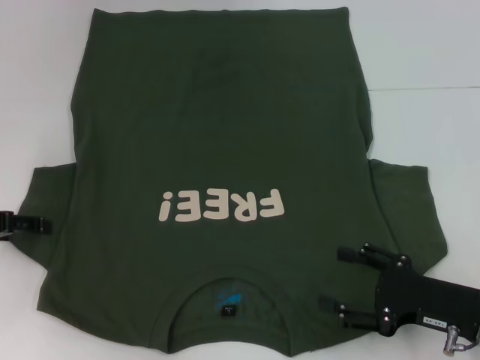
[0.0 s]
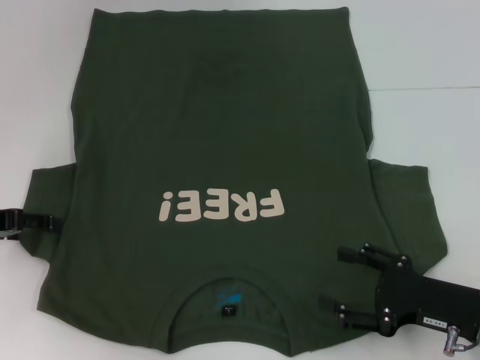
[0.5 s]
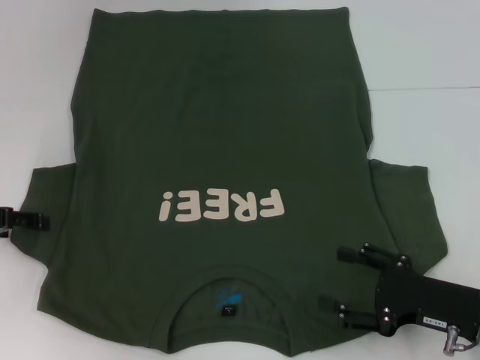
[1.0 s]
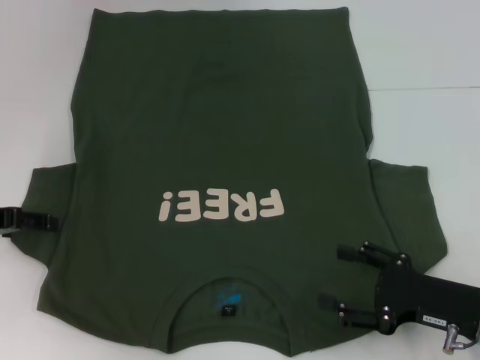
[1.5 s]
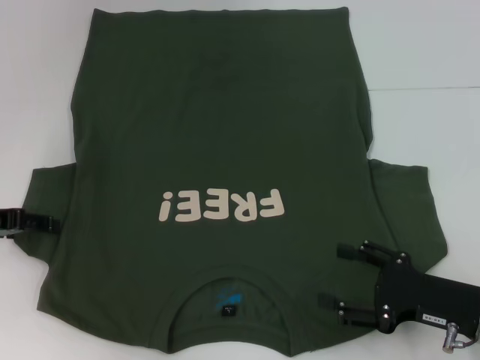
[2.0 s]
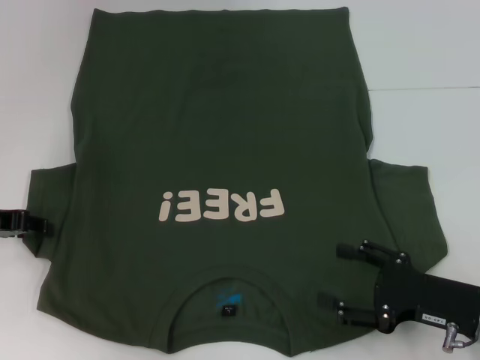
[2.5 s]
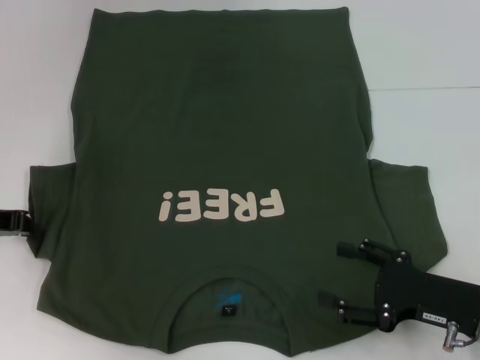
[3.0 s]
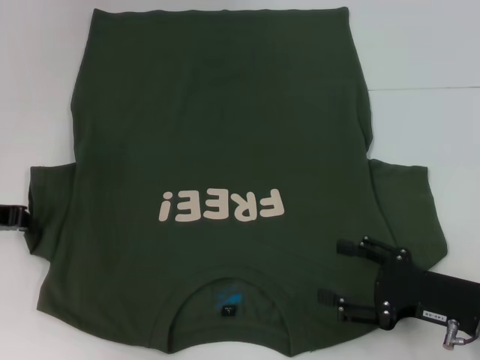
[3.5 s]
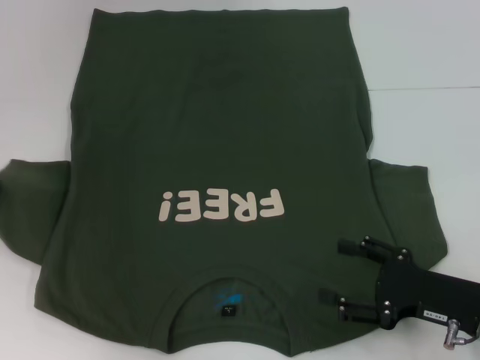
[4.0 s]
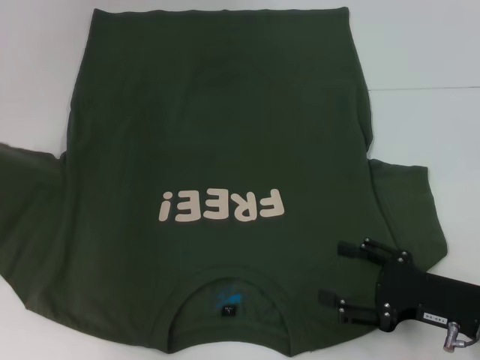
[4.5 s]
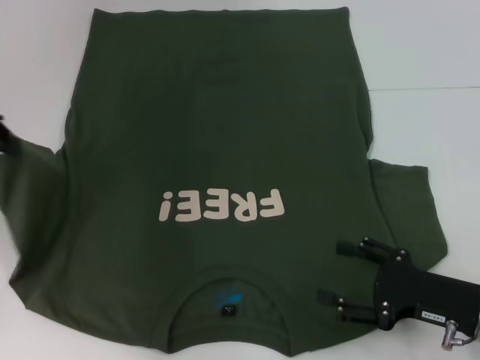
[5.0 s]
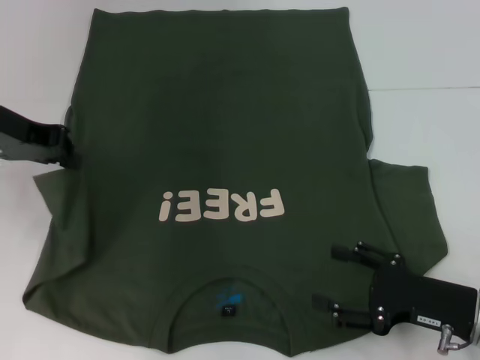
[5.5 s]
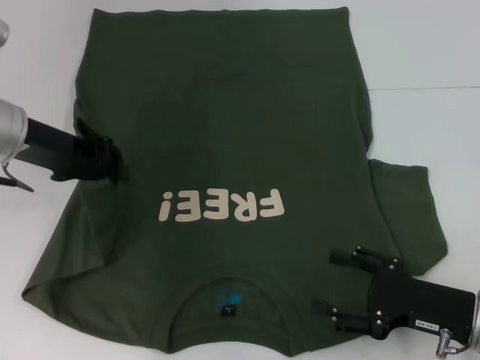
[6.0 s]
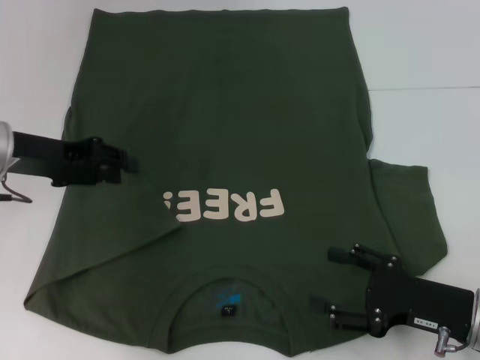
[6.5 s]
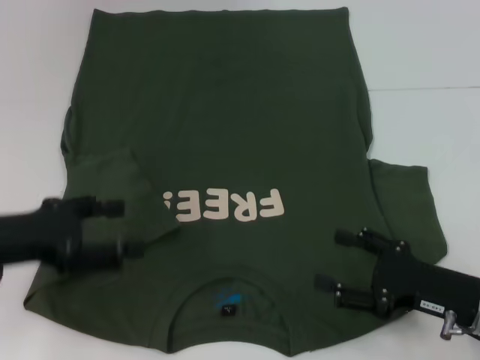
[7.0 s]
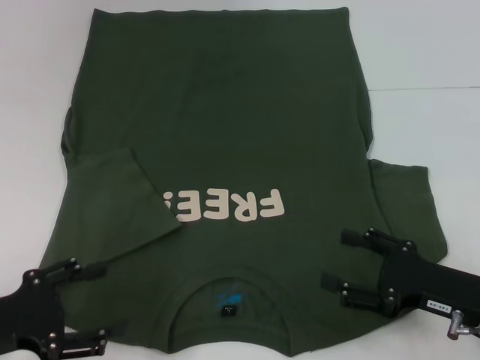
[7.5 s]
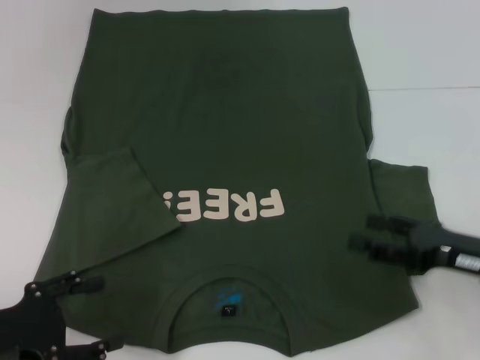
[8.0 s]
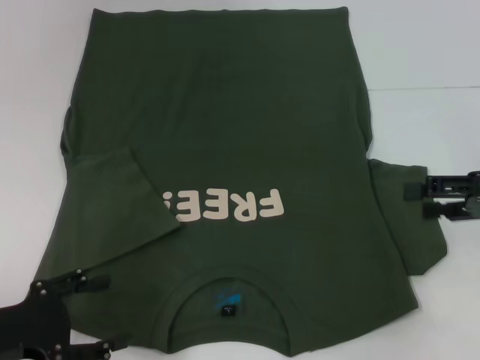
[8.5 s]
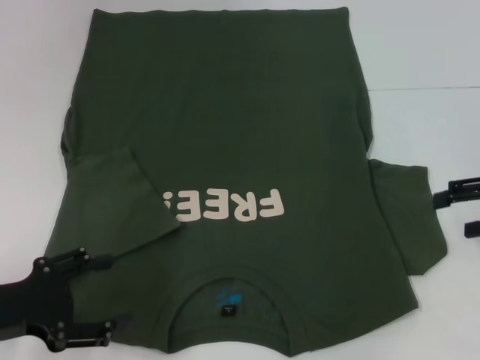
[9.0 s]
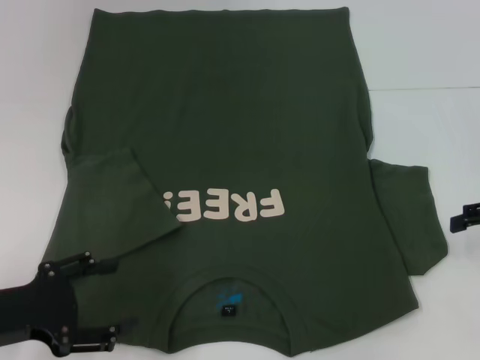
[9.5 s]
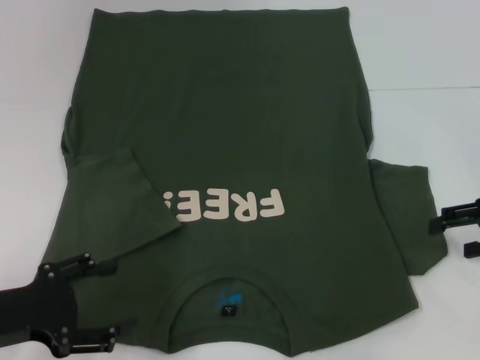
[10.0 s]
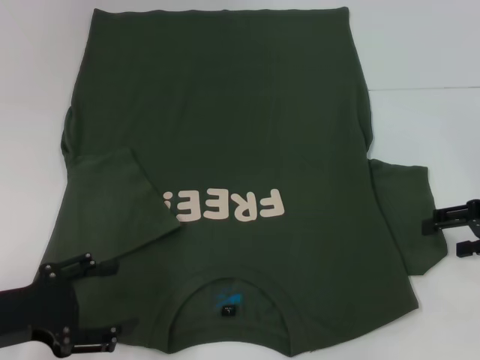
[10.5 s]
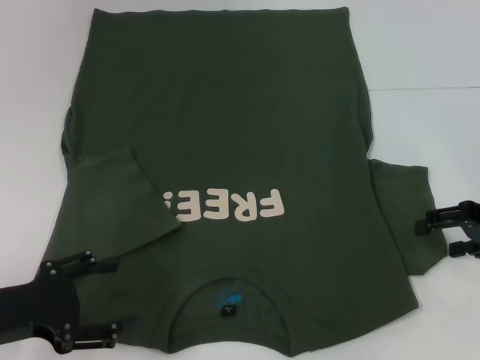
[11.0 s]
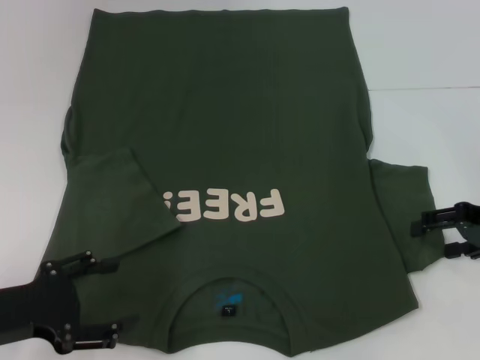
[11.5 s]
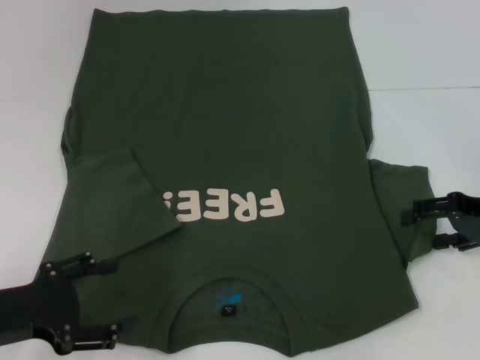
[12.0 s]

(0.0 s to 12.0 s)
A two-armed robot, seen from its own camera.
Step, 0.0 s - 6.5 s: Fold the bottom left sleeve with your left hand.
0.0 s - 2.0 s: There are only small adjustments of the grippers.
2.0 s - 4.0 s: The left gripper moves upward, roughly 5 cm, and closes up.
4.0 s - 6.0 s: The left gripper heads to the right, covering about 10 cm.
6.0 s - 8.0 s: The right gripper shifts by some 5 cm. The left gripper goes some 20 cm backward and downward, and opens its fingers.
8.0 s - 10.0 s: The right gripper shifts roughly 10 cm forward, to the right and upward.
10.0 s - 12.0 s: The grippers make only small movements.

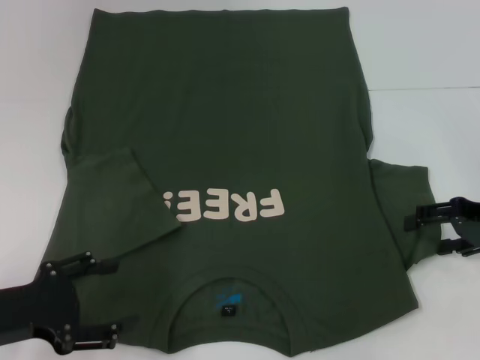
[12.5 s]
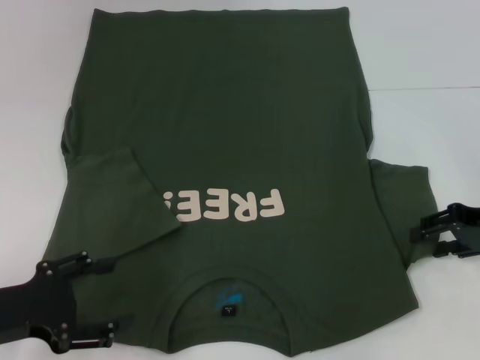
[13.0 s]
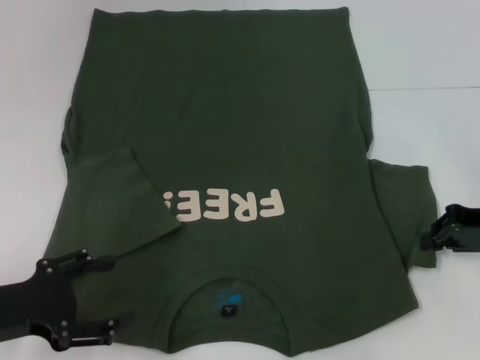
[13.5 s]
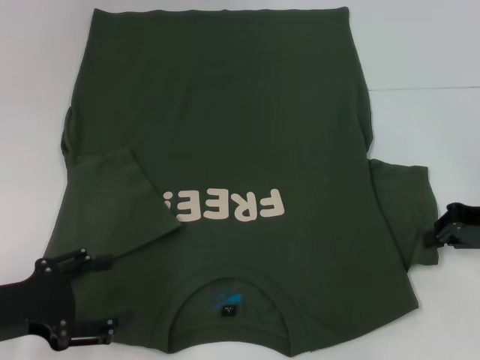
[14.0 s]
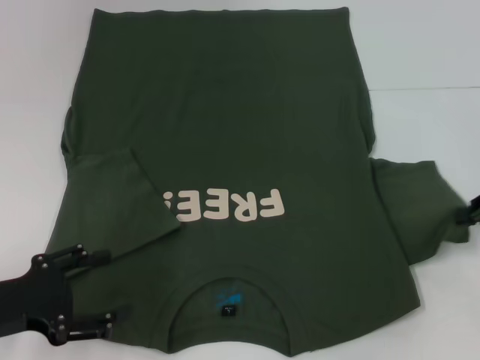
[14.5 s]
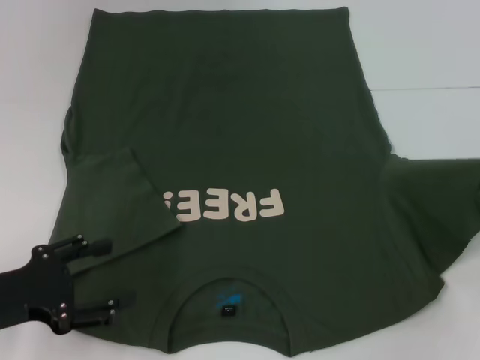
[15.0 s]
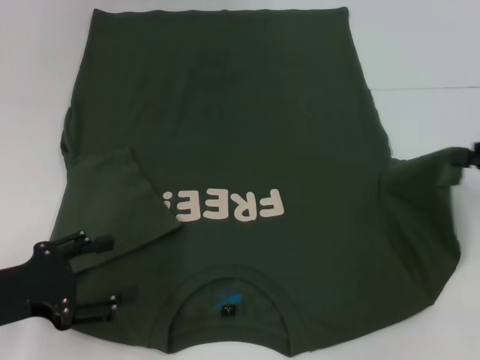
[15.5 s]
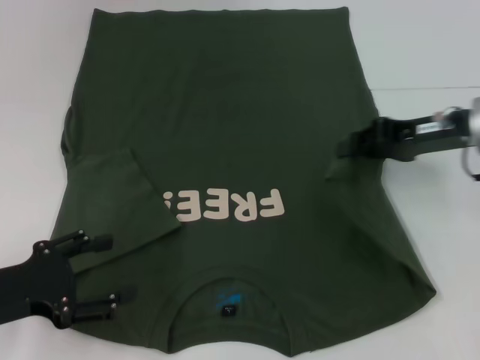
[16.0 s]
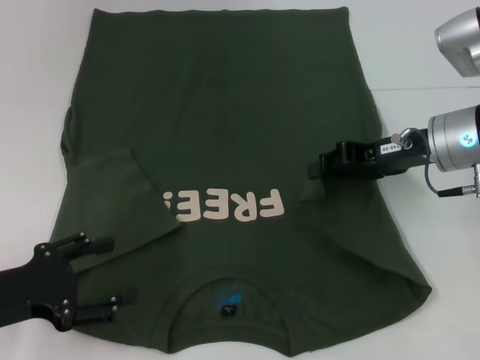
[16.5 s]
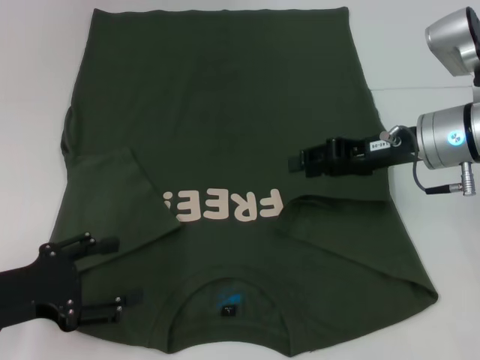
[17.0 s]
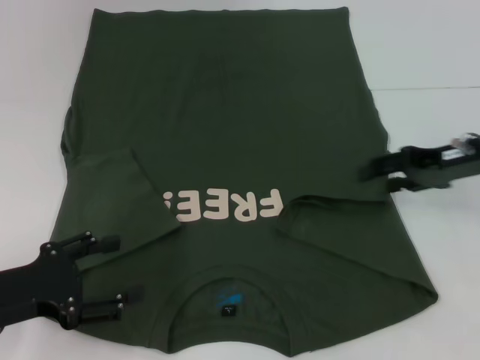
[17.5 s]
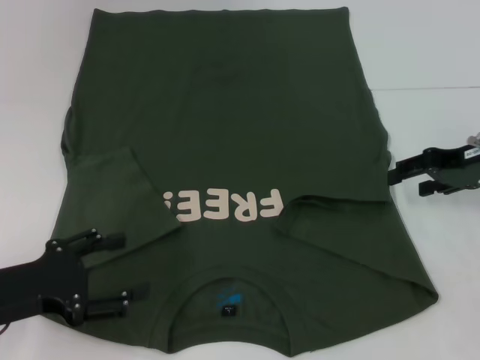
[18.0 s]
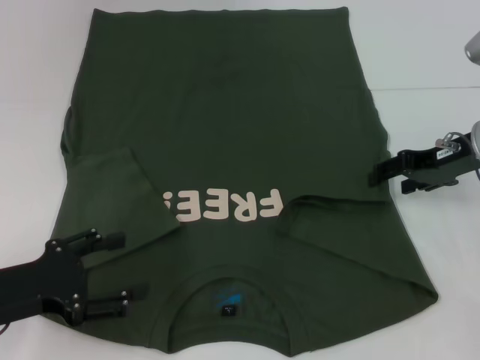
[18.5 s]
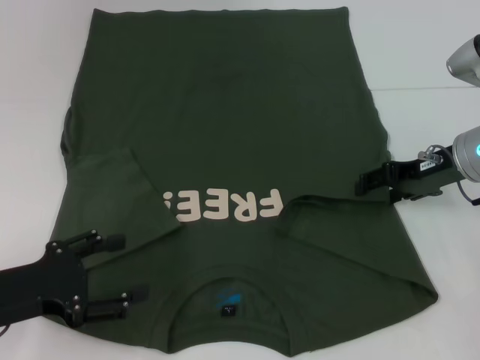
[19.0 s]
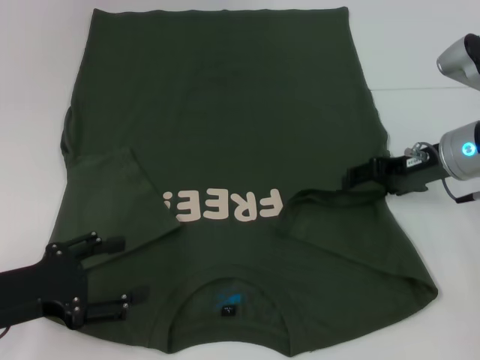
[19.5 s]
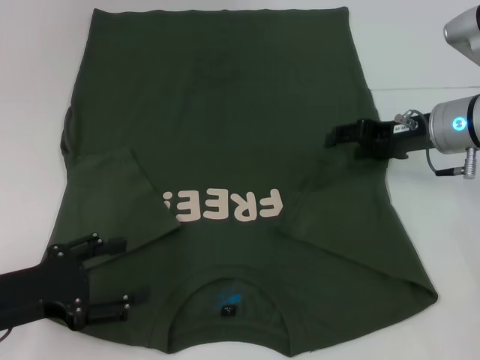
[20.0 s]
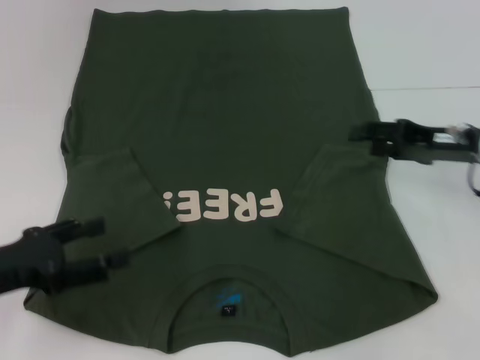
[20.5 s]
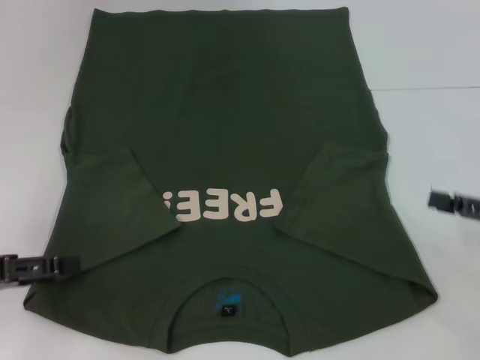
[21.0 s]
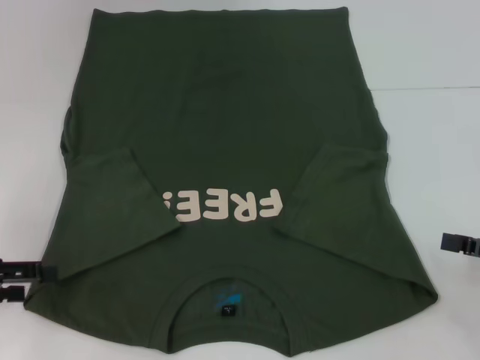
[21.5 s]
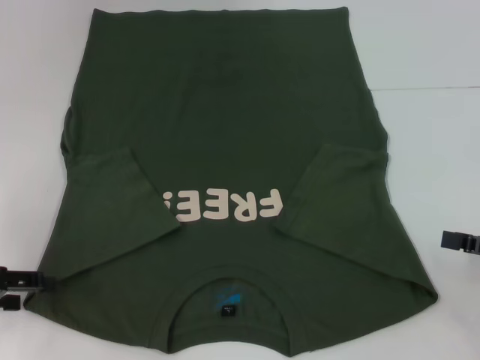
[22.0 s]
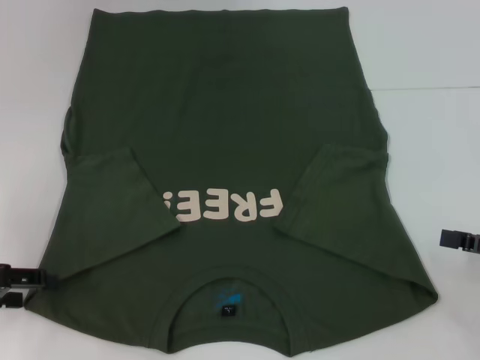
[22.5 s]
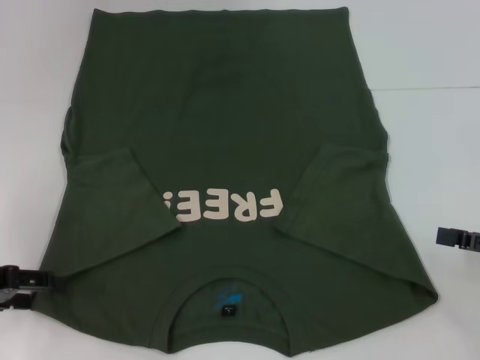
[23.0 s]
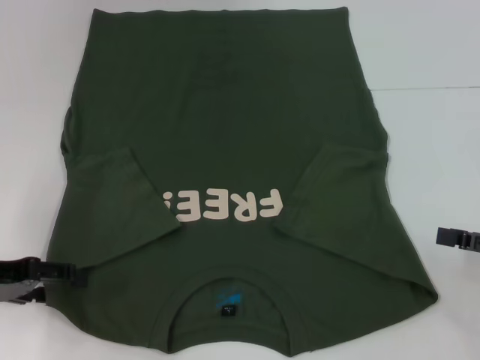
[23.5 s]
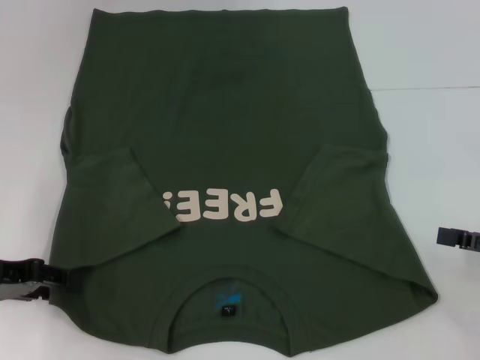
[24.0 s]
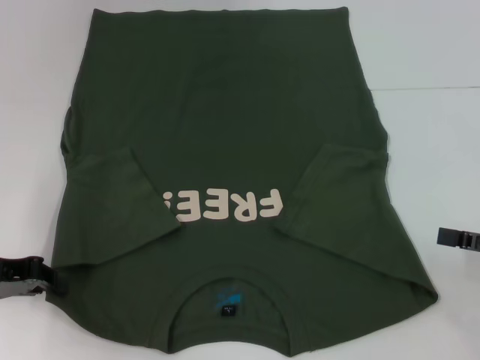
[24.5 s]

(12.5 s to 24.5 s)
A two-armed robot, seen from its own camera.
Step, 12.5 s - 20.0 s: Fold the bottom right sleeve with your right hand.
12.5 s - 14.5 s: The right gripper closes its fingers.
14.5 s - 16.5 s: The right gripper goes roughly 15 cm to the left and forward.
16.5 s - 18.5 s: The right gripper moves some 5 cm, and opens.
20.5 s - 22.5 s: The right gripper heads backward and to the right, covering about 15 cm. Meanwhile the left gripper shifts approximately 5 cm to the left.
22.5 s - 24.5 s: The left gripper closes up.

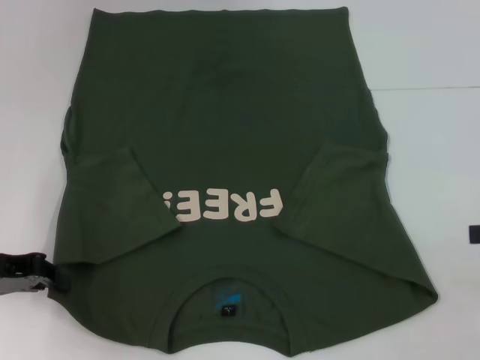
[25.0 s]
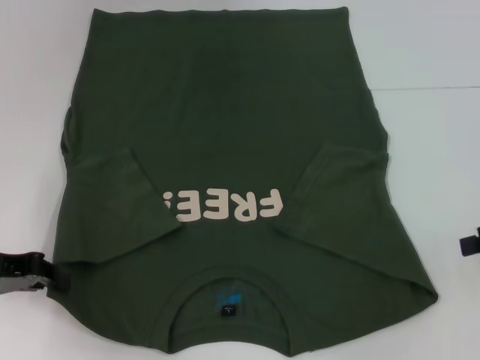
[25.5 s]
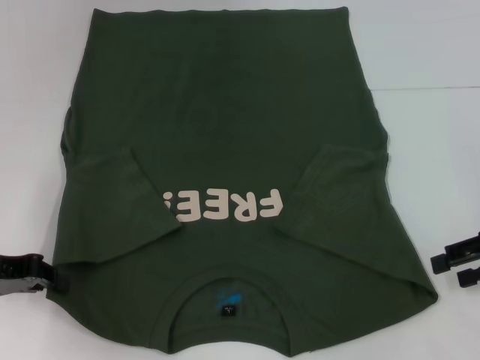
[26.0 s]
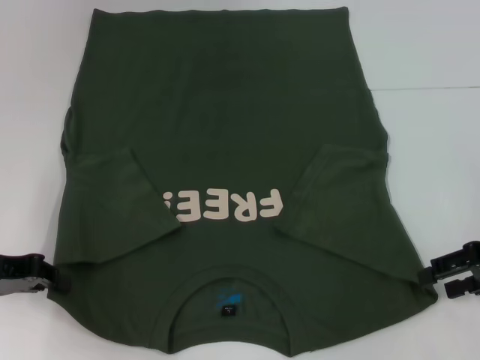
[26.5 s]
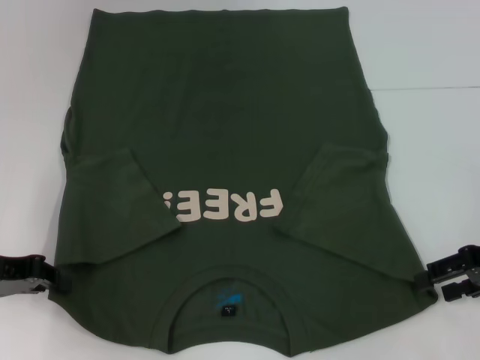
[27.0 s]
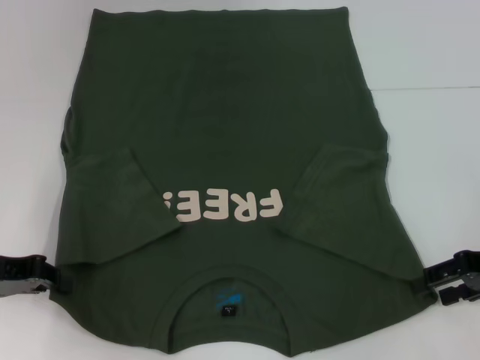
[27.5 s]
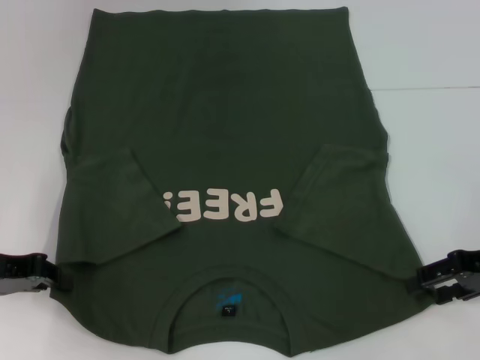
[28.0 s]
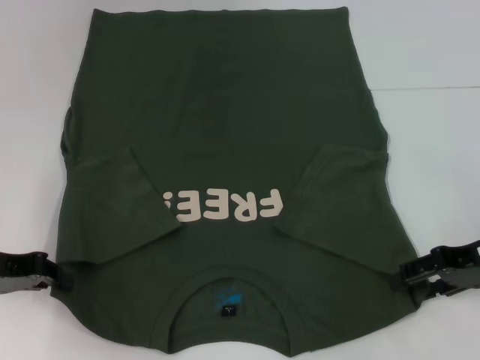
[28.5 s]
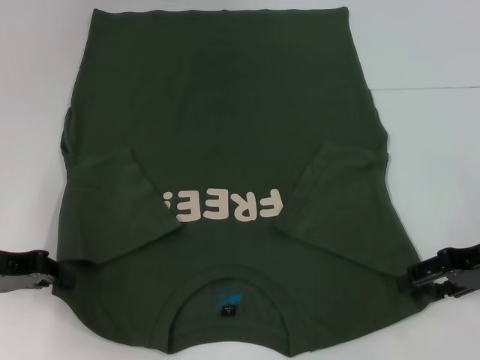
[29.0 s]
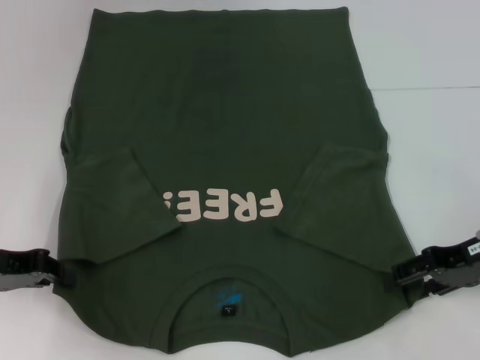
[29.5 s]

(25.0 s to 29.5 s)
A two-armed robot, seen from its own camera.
25.0 s - 27.0 s: The right gripper heads to the left, covering about 5 cm.
27.0 s - 29.5 s: The grippers stay close to where they were, moving slightly.
